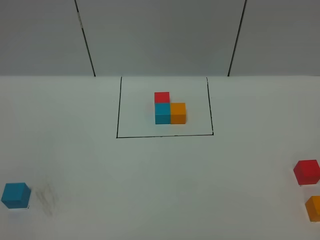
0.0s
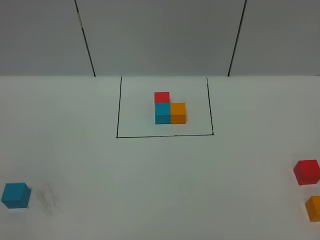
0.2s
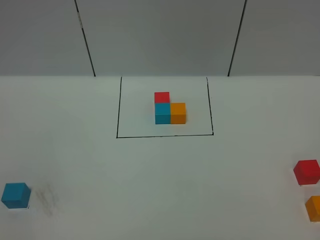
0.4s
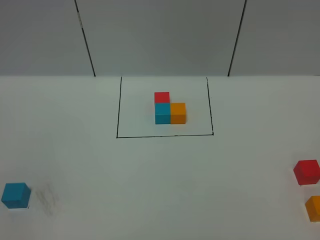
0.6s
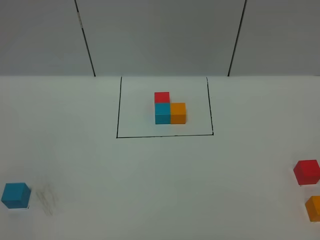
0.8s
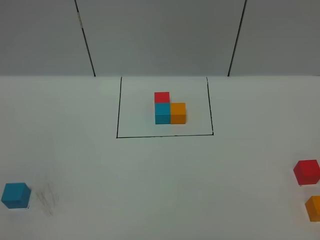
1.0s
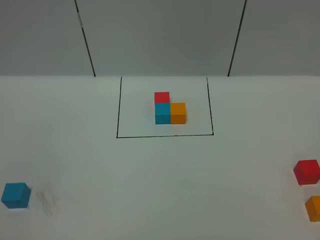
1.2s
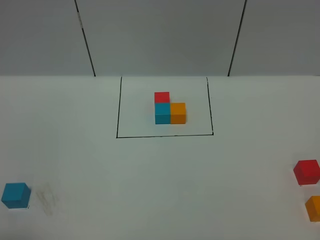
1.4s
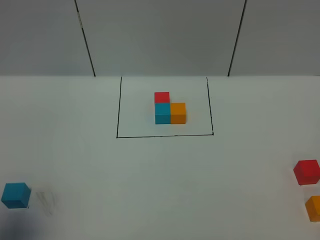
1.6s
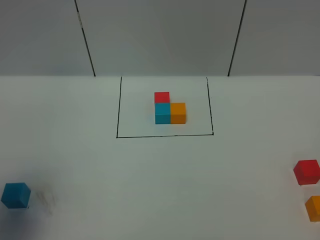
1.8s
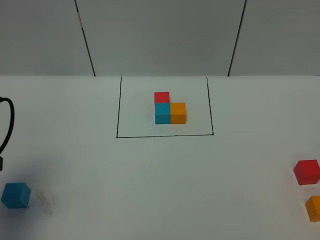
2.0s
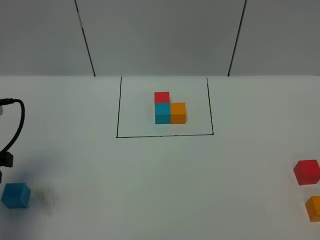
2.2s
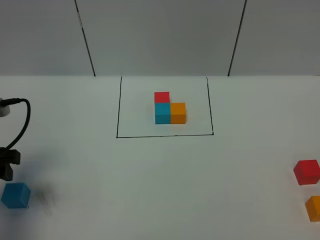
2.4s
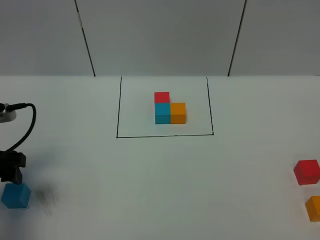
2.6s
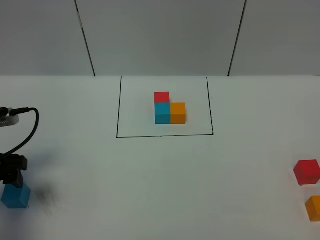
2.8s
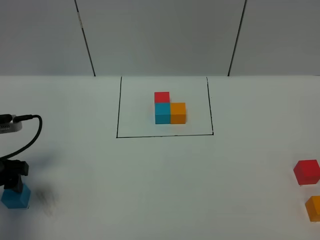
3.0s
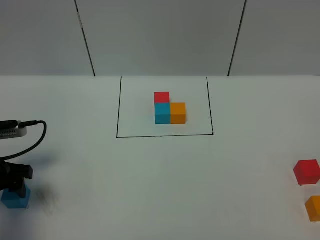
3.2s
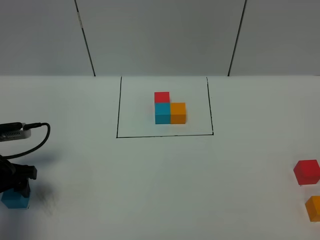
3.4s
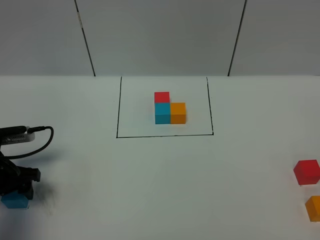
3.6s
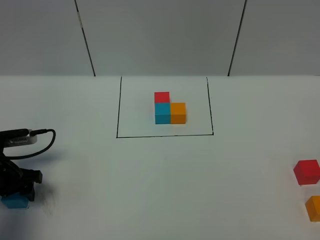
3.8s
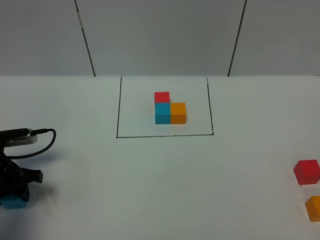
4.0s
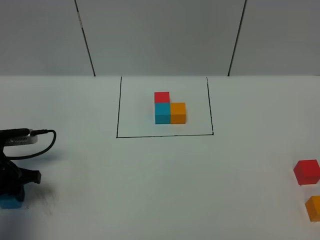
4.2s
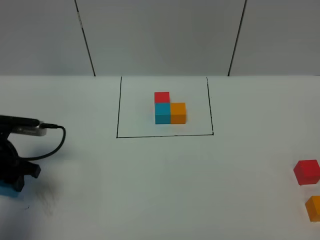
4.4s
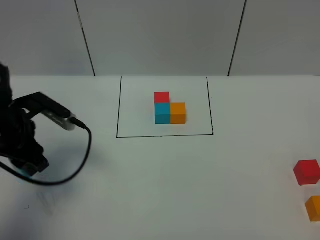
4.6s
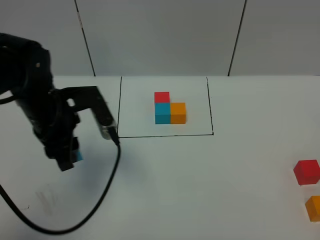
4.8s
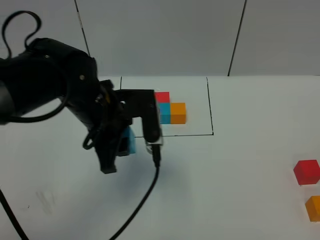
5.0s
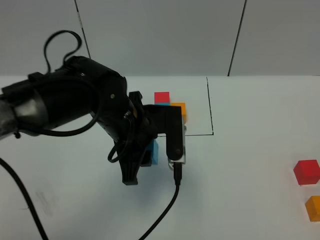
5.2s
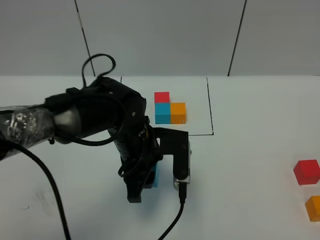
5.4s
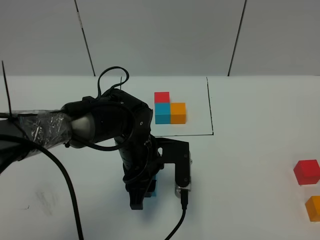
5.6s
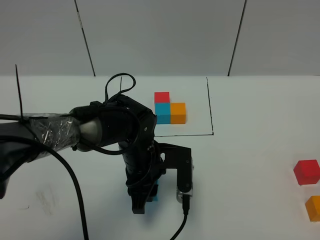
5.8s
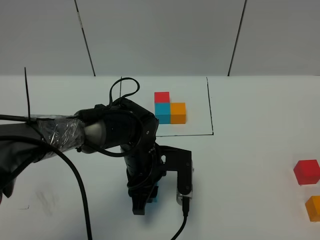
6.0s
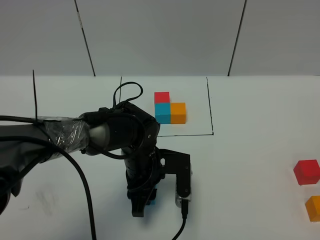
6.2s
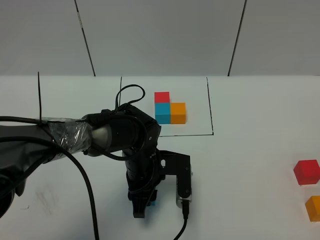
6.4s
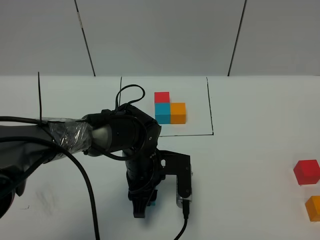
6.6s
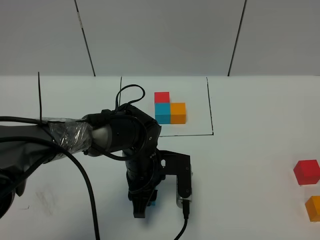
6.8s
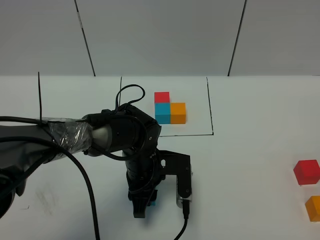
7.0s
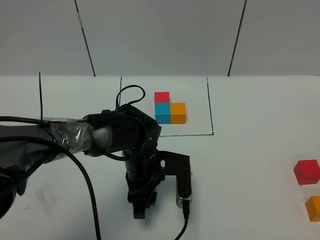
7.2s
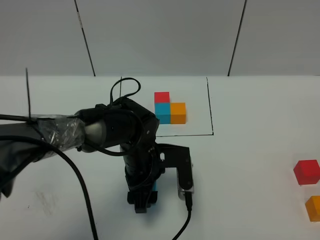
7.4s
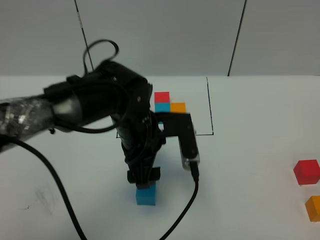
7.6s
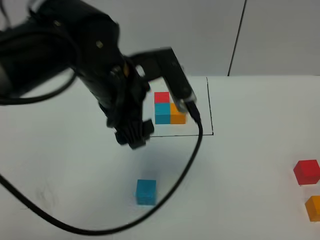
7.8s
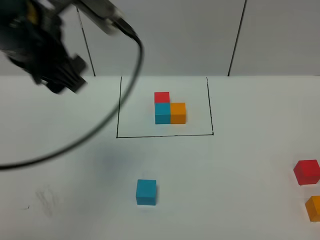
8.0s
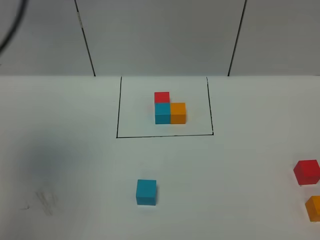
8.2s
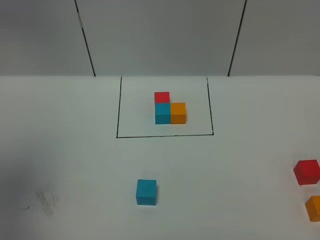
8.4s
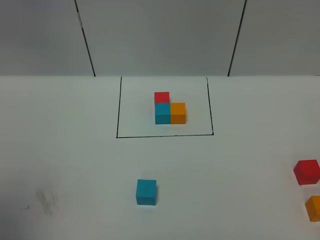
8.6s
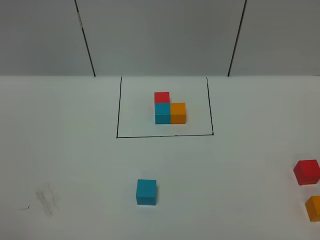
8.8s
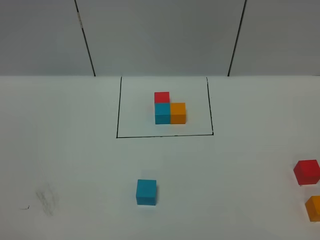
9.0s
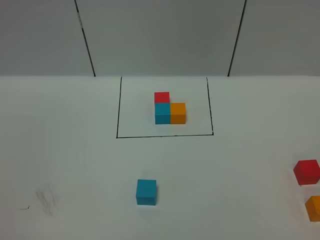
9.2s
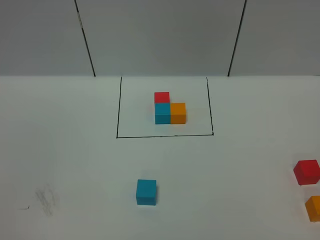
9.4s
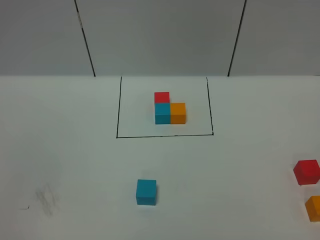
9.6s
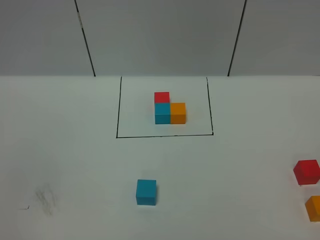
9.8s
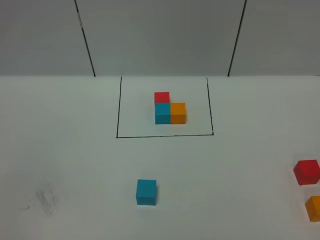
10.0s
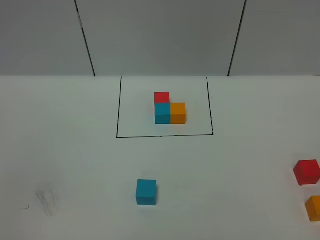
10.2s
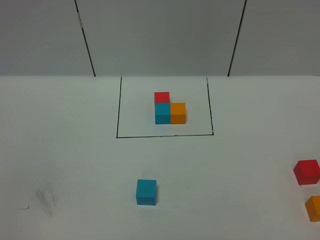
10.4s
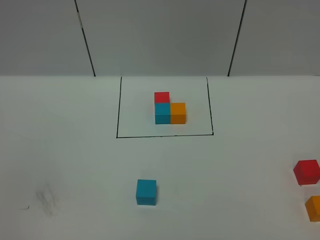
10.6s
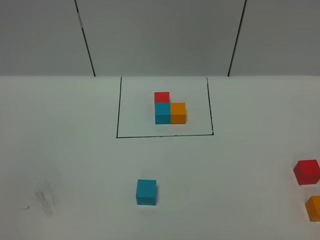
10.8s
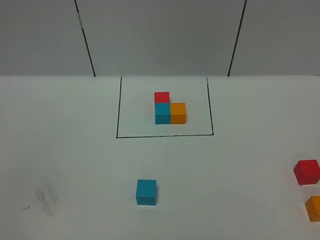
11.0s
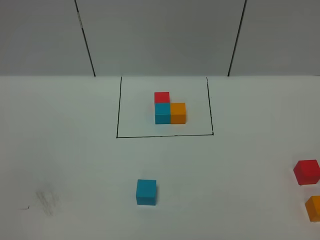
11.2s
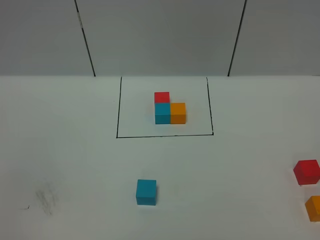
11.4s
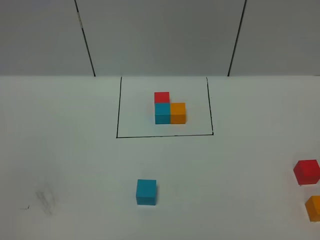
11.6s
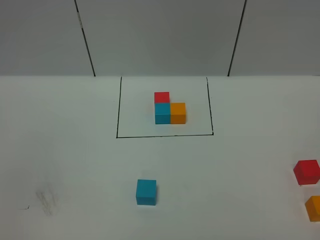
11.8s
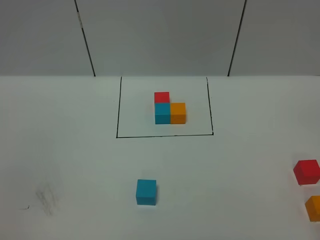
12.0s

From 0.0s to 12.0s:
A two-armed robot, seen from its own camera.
Task of the whole recording: According to the building block template in front, assemble the scattered blocks together.
Step, from 2.0s to 7.6s: Put the blue cube in the center of the table.
From 0.0s to 1.6s: The left gripper moves forward, roughly 15 cm.
From 1.6s to 3.0s: The left gripper goes roughly 20 cm downward and forward, and opens up.
From 3.0s to 4.4s: The left gripper changes place by roughly 5 cm, and closes.
From 4.4s to 6.0s: The left gripper is displaced to the right by about 25 cm.
From 6.0s to 7.6s: The left gripper heads upward, covering some 10 cm, and opens its fingers.
From 7.6s to 9.0s: The left gripper goes some 50 cm backward, to the left and upward.

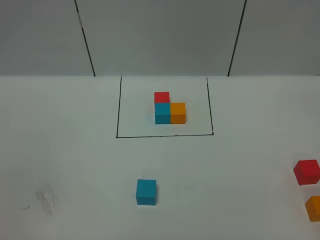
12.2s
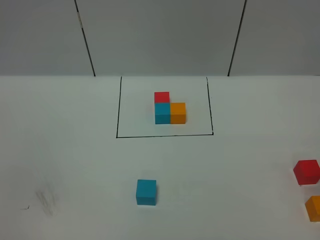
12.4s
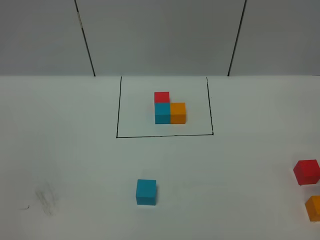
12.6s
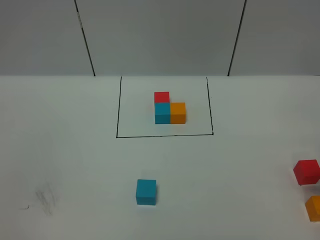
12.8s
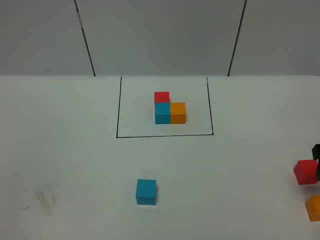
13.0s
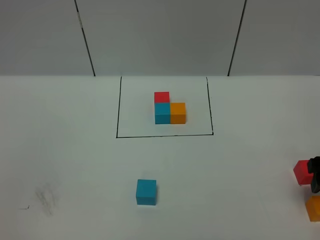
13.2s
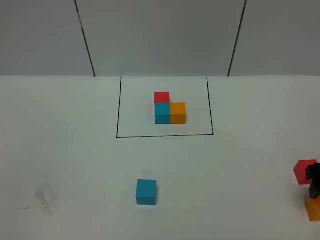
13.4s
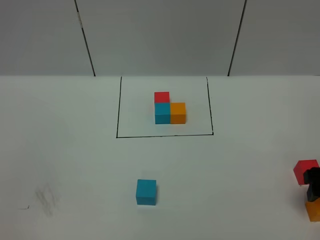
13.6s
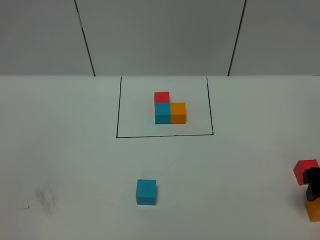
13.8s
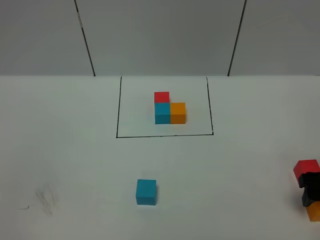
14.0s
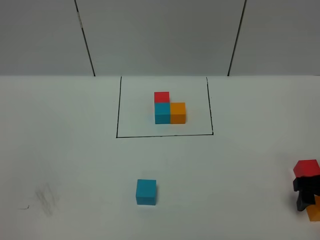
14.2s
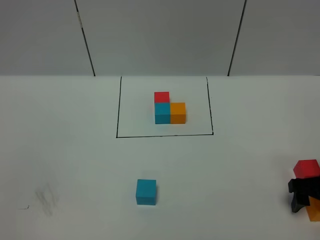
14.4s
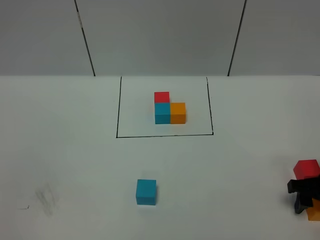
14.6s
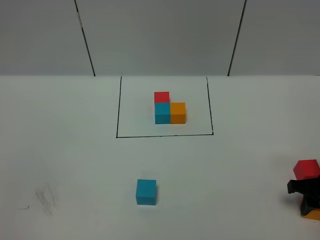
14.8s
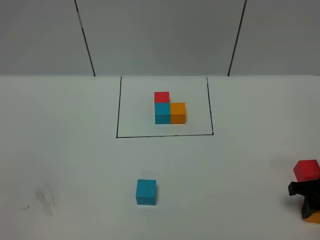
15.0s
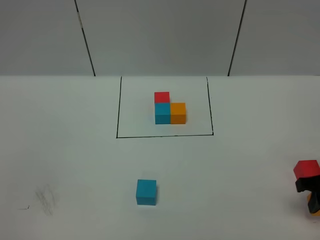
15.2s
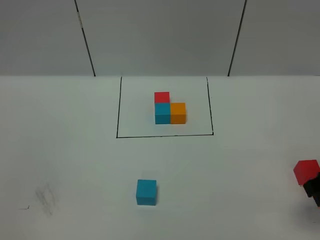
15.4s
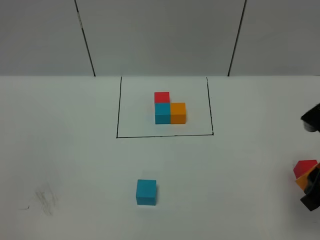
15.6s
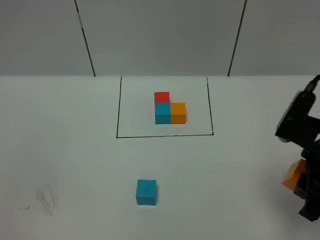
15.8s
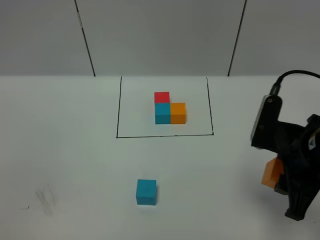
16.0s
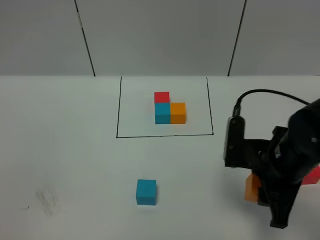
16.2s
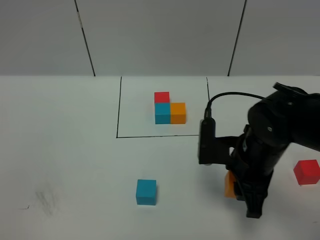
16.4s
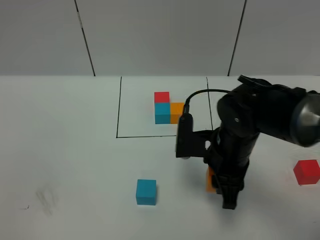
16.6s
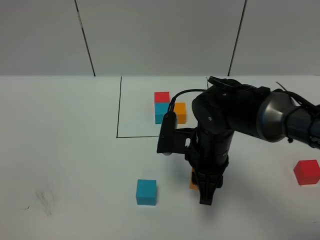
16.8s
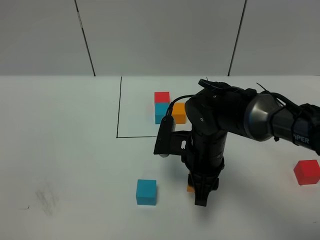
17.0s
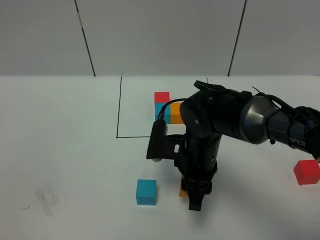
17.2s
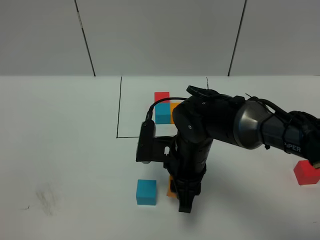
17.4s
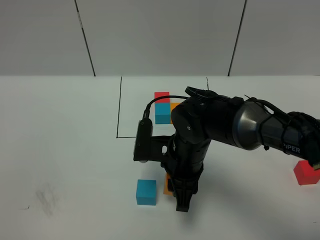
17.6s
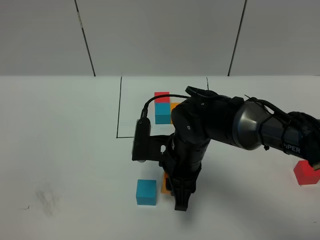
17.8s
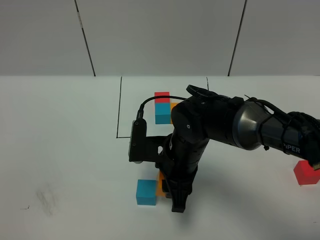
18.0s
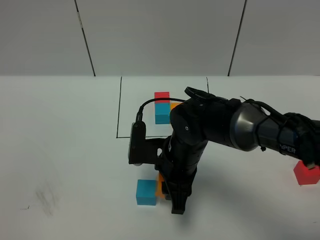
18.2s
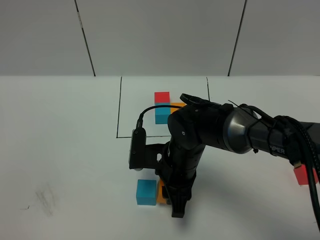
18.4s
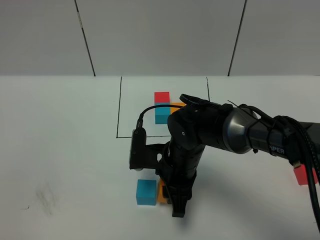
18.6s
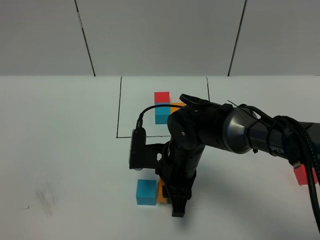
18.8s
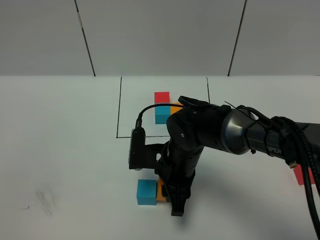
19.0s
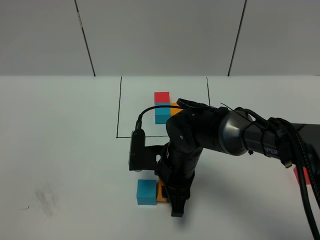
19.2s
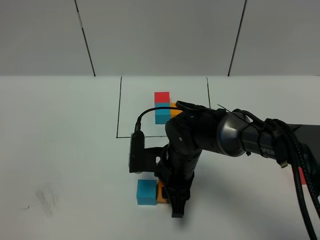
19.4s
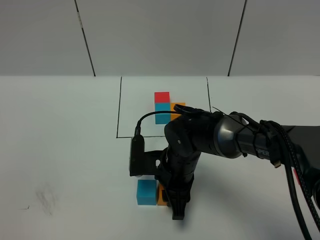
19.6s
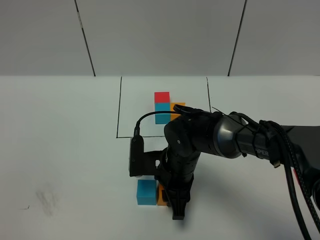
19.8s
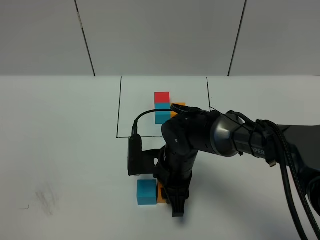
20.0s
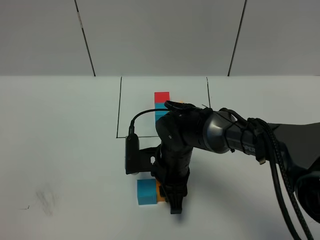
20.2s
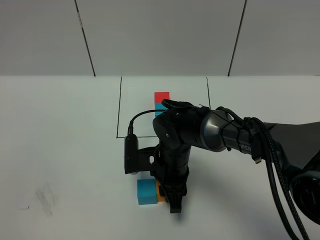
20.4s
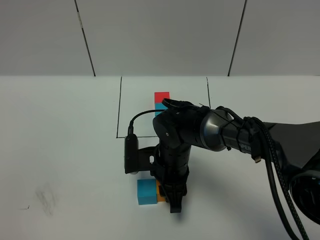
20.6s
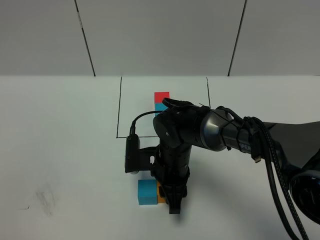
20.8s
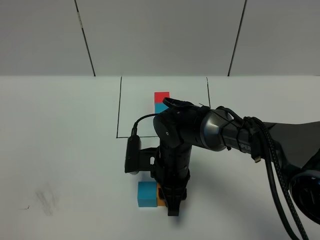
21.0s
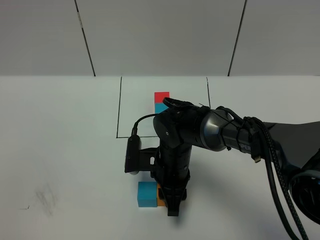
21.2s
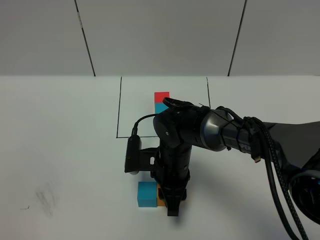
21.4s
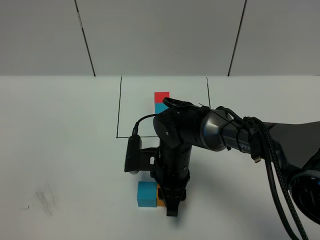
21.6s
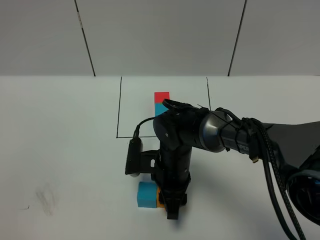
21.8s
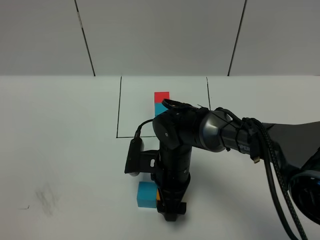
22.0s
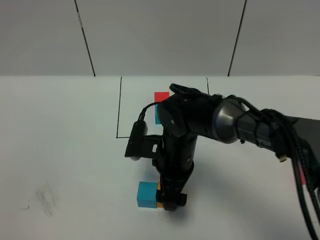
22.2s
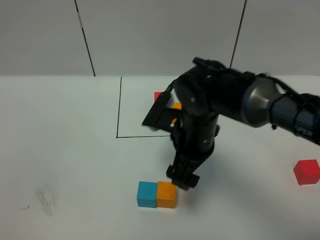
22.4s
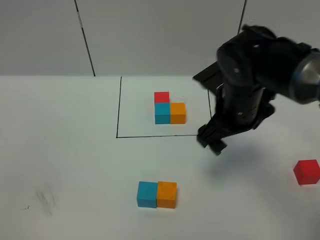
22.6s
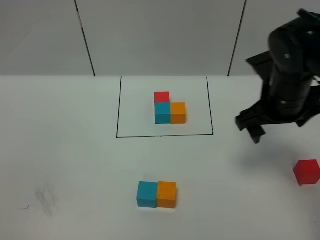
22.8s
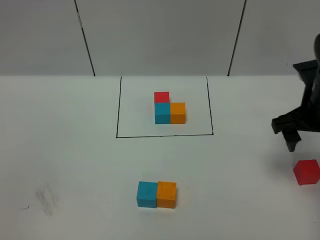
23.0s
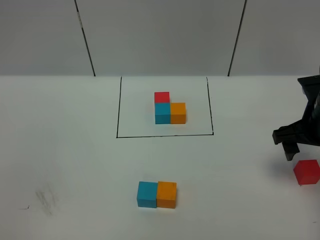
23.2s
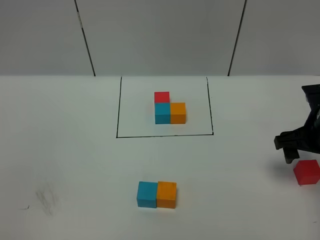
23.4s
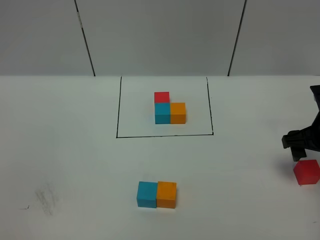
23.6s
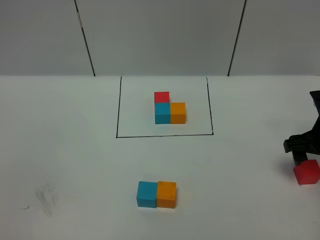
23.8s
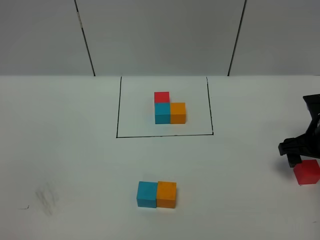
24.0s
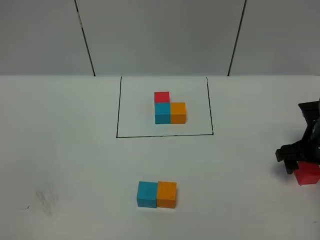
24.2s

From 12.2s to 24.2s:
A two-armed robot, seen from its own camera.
Task of the whole recording: According to the building block template in front, assemble the scattered blocks together.
Step, from 12.2s to 22.4s: Put the orange cube on the right of the blue cube.
From 12.2s to 13.8s: The right gripper travels downward and forward by about 20 cm.
From 13.8s to 15.2s: The right gripper closes its fingers.
From 15.2s to 16.6s: The right gripper shifts approximately 20 cm to the left.
From 16.6s to 18.2s: The right gripper heads to the left, covering about 5 cm.
From 18.2s to 21.2s: The grippers make only small movements.
From 21.2s to 22.6s: The right gripper heads upward and to the right, covering some 20 cm, and opens up.
From 22.6s to 24.2s: The right gripper shifts approximately 20 cm to the right and downward.
